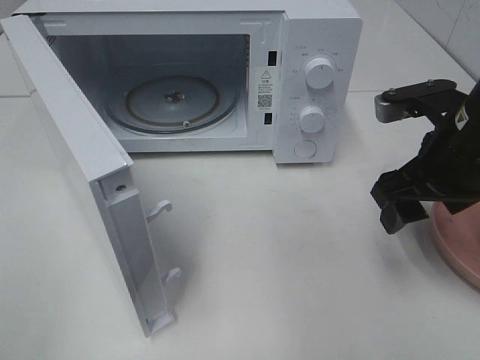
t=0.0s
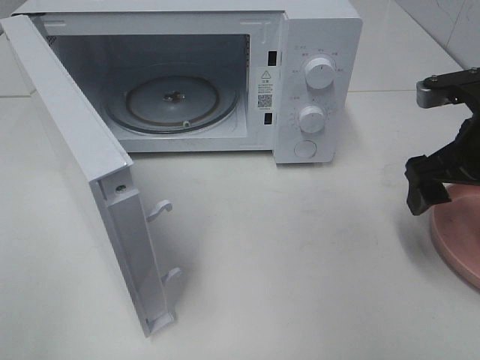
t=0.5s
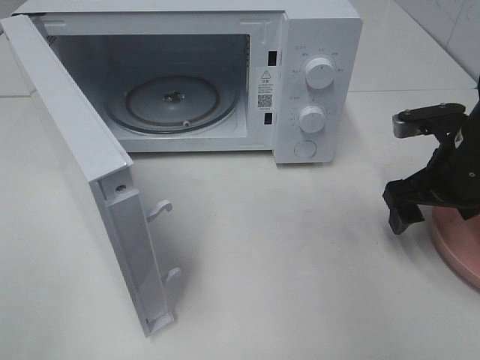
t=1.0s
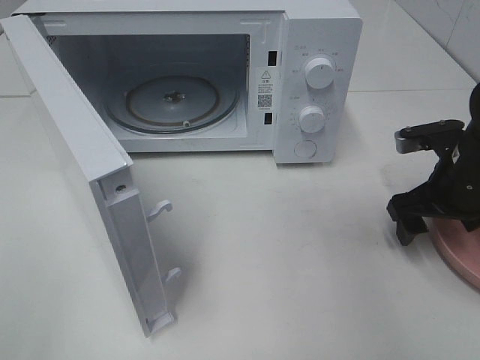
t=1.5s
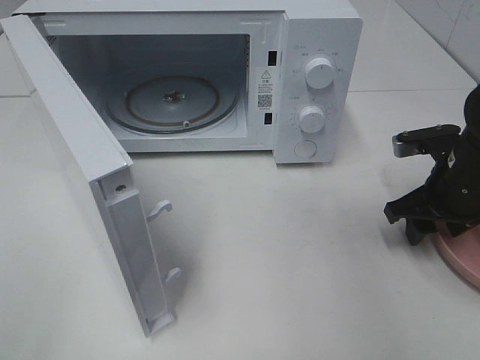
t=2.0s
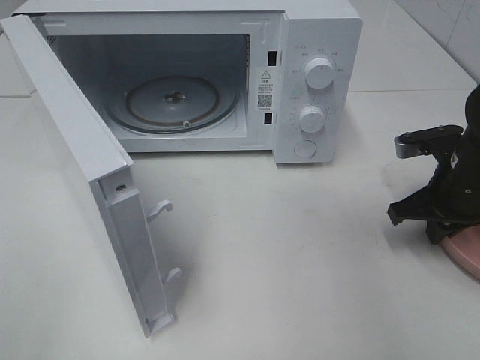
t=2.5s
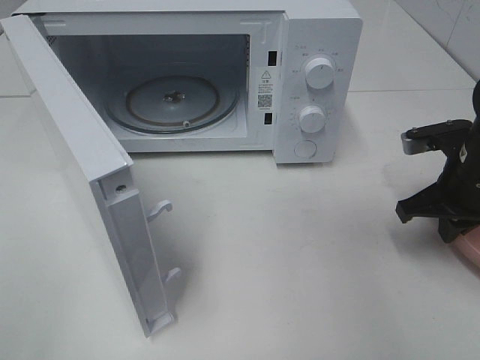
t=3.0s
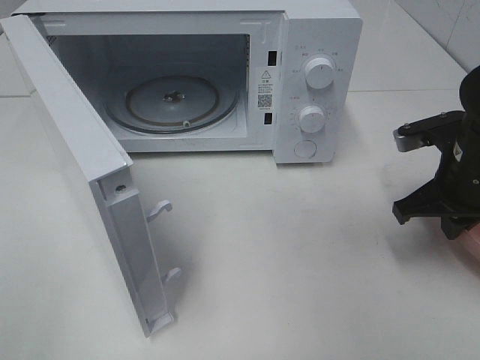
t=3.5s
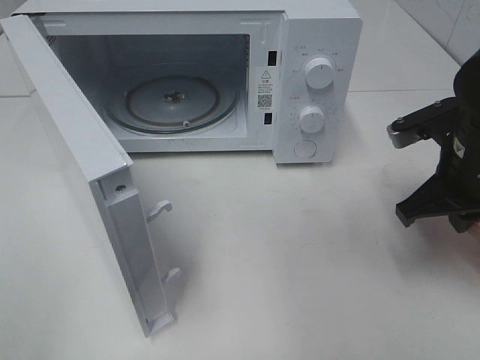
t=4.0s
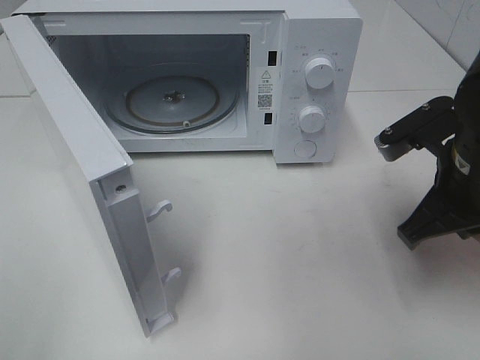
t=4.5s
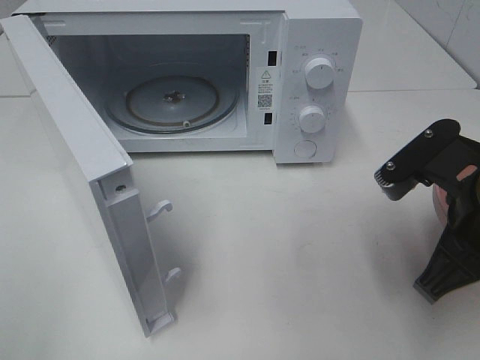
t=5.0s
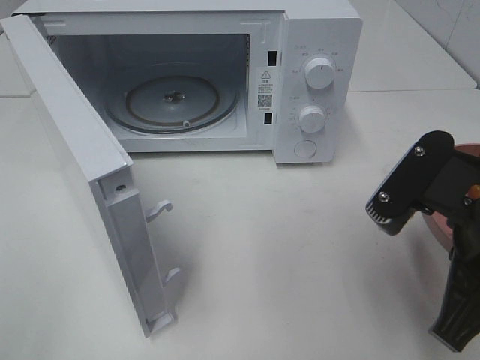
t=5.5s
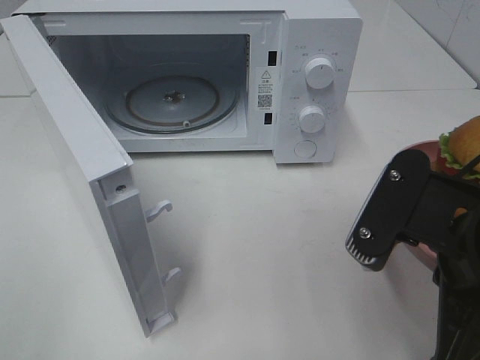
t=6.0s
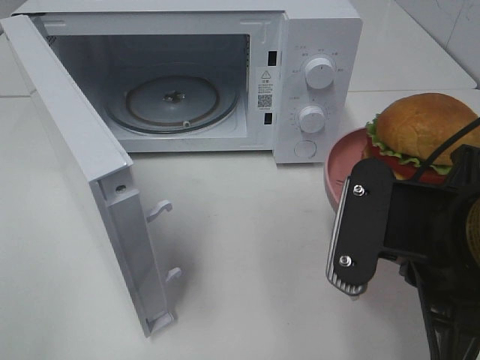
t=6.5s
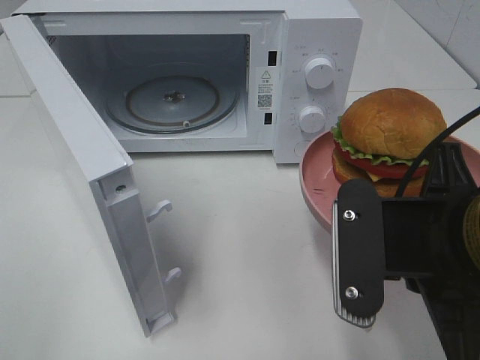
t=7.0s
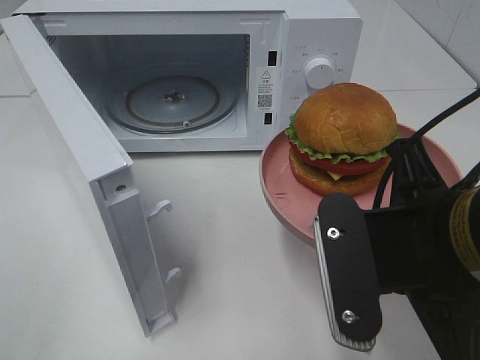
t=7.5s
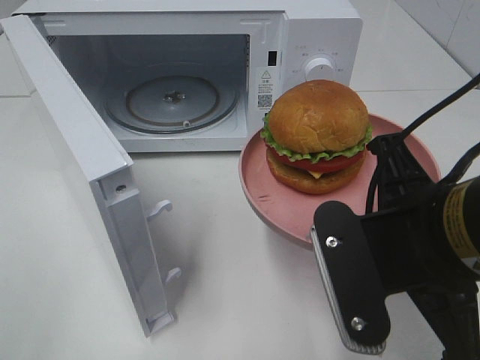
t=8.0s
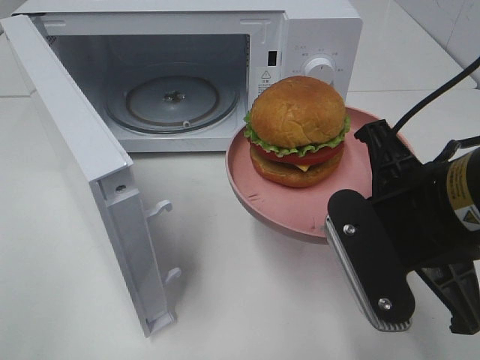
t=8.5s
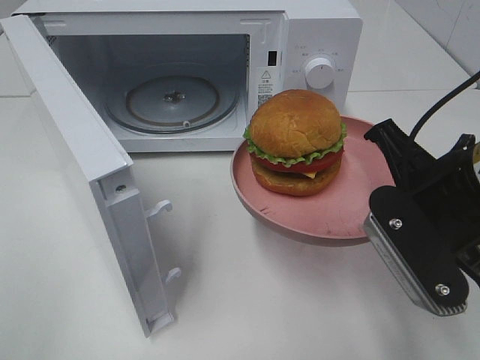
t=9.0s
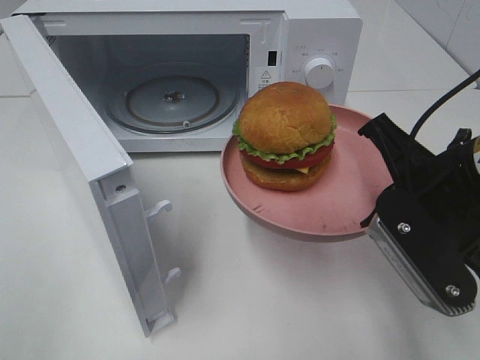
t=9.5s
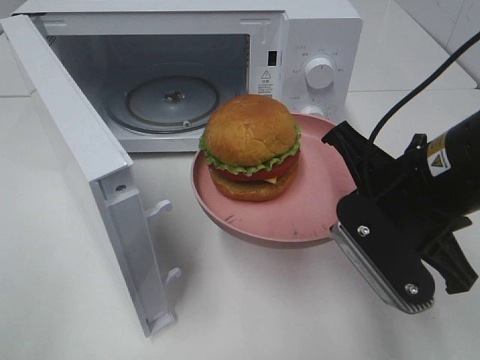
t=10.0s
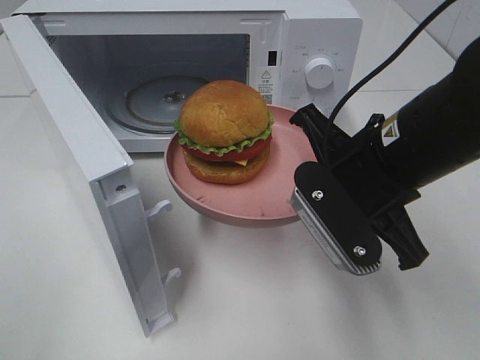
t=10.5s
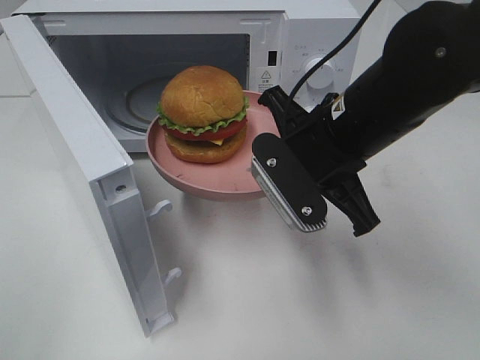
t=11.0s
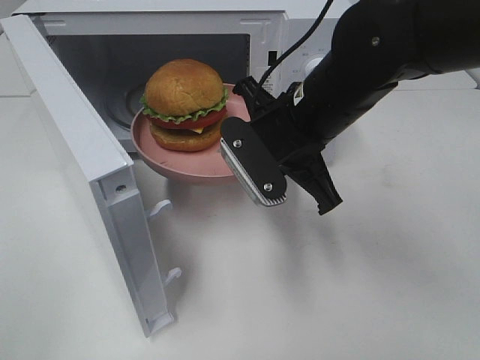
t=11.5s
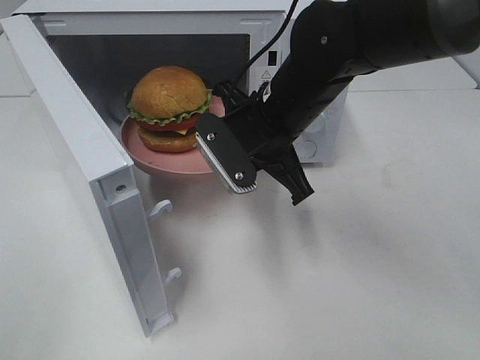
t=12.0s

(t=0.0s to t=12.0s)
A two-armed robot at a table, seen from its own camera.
Task of the whole recording: Heat the burger.
Step, t=0.0s - t=3.0s: Right hand: grab the plate with the hamburger.
t=0.0s - t=2.0s: The right gripper shifts approximately 10 cm downward and to the right.
t=2.0s - t=4.0s: The right gripper heads upward, covering roughly 5 cm, and closes up.
t=4.0s - t=6.0s: The right gripper shifts about 15 cm backward and to the left.
t=8.0s - t=10.0s: The right gripper moves forward, about 5 cm.
t=10.0s - t=12.0s: The right gripper moves forward and to the left, some 15 cm.

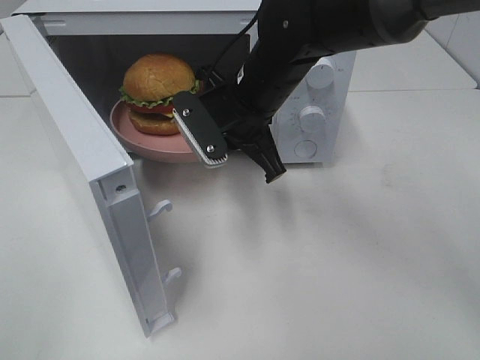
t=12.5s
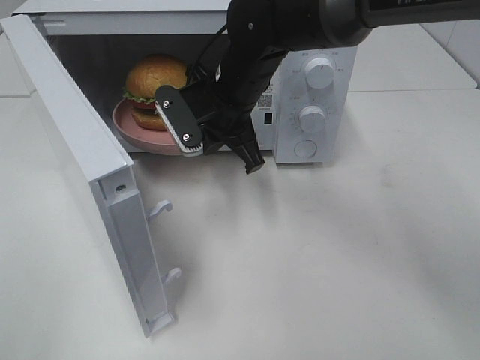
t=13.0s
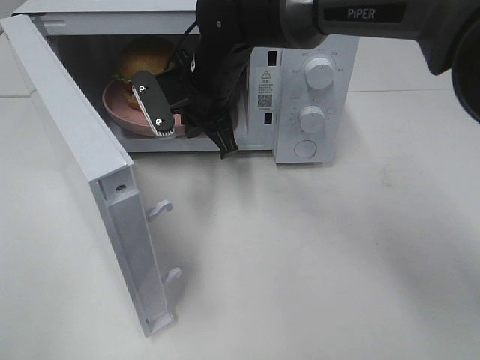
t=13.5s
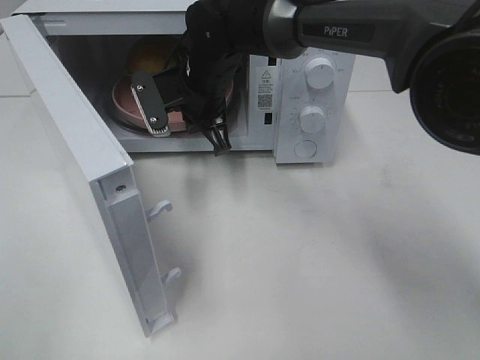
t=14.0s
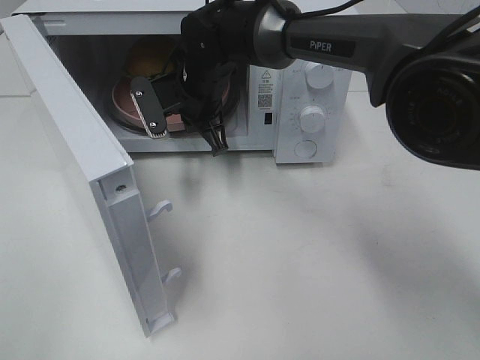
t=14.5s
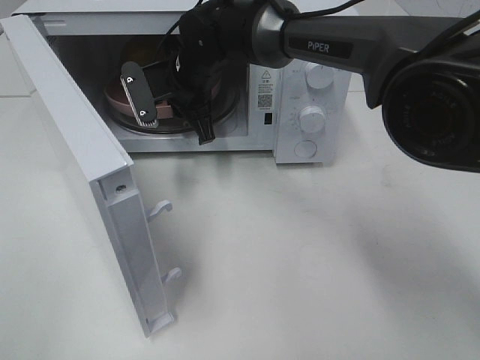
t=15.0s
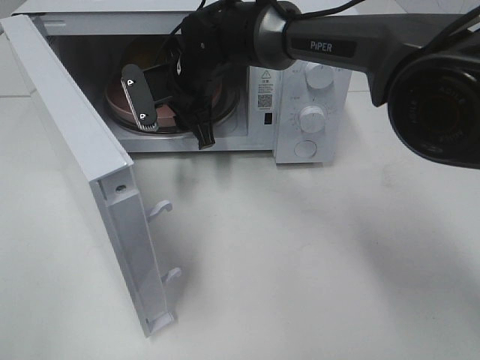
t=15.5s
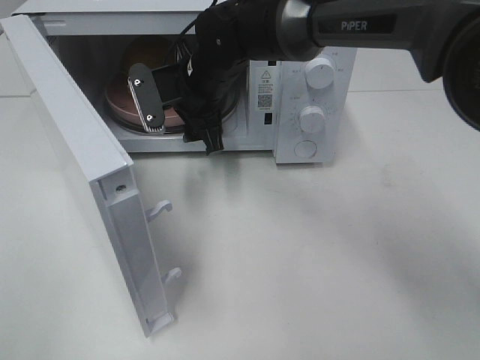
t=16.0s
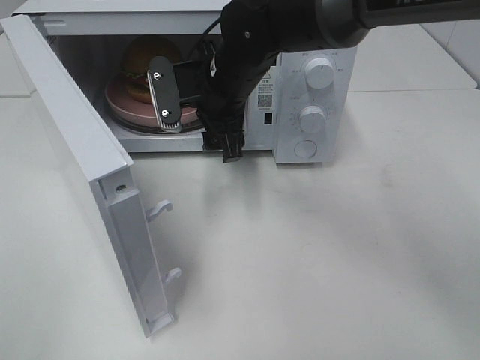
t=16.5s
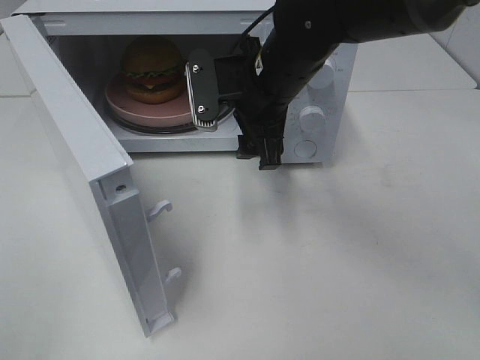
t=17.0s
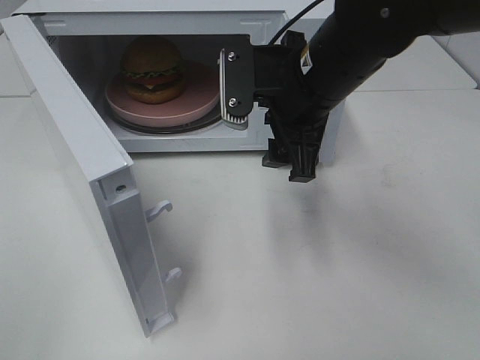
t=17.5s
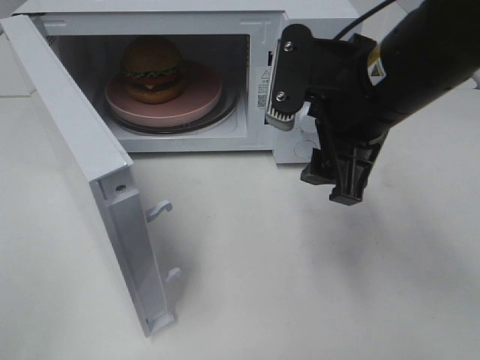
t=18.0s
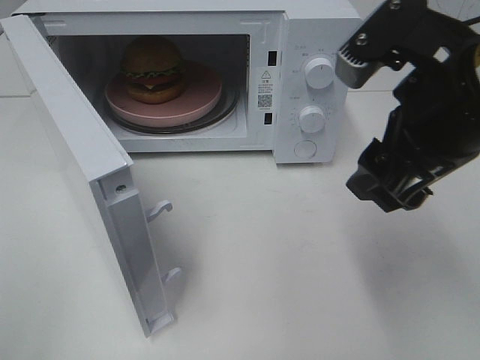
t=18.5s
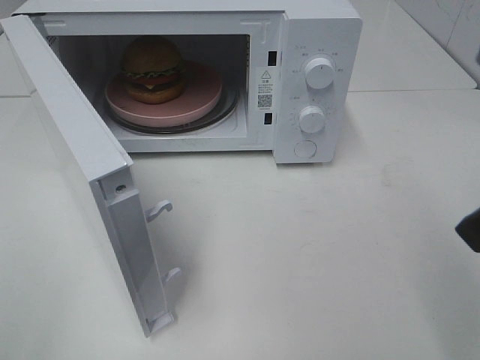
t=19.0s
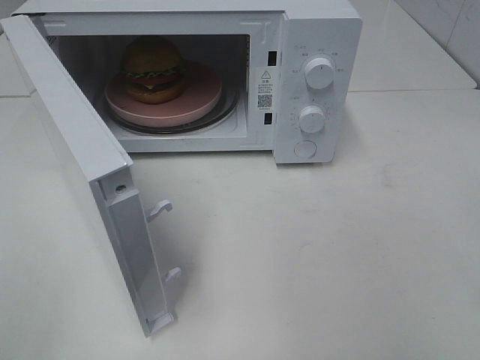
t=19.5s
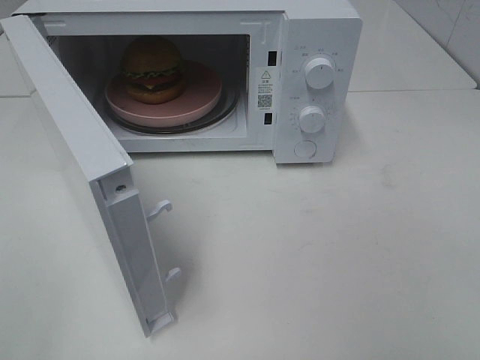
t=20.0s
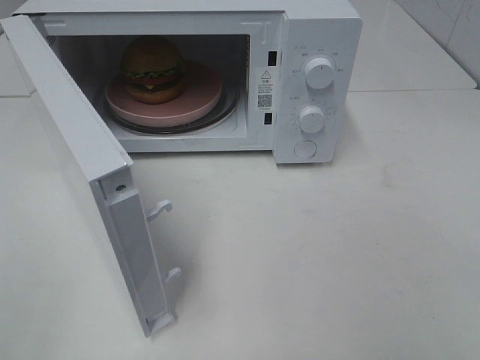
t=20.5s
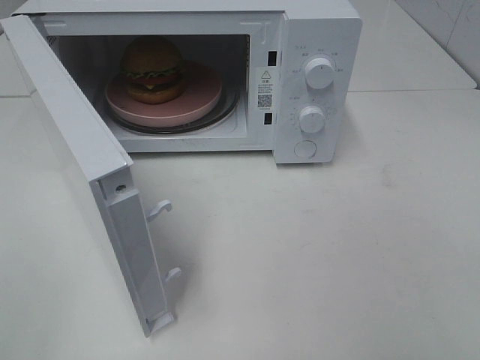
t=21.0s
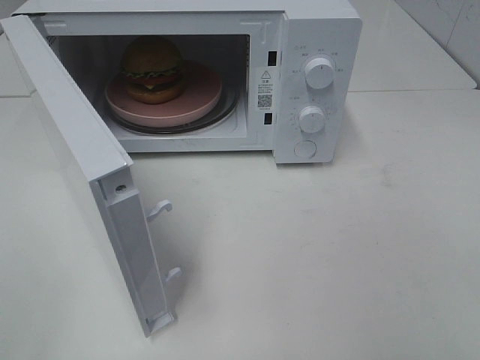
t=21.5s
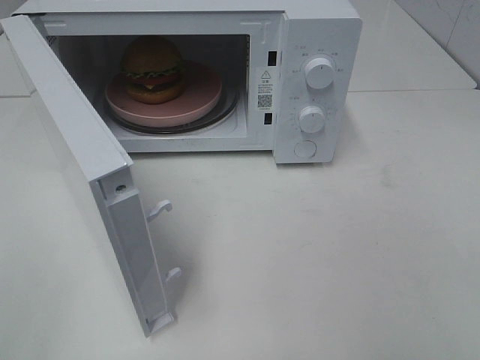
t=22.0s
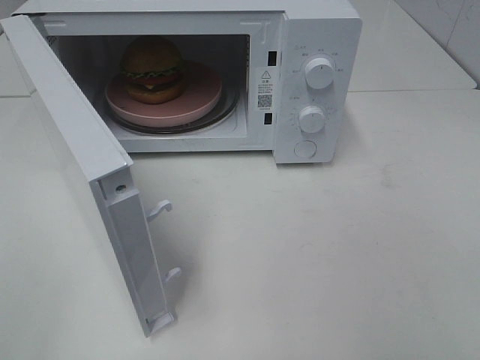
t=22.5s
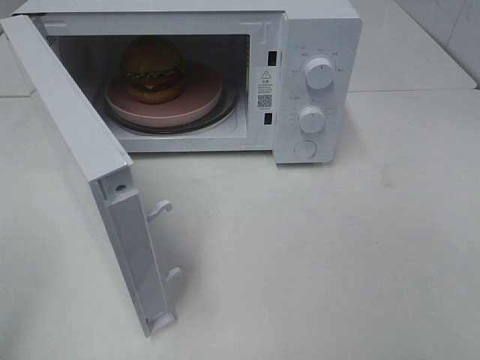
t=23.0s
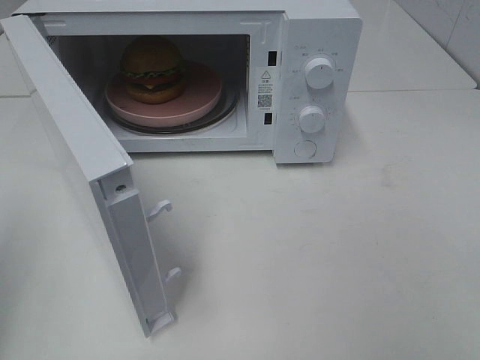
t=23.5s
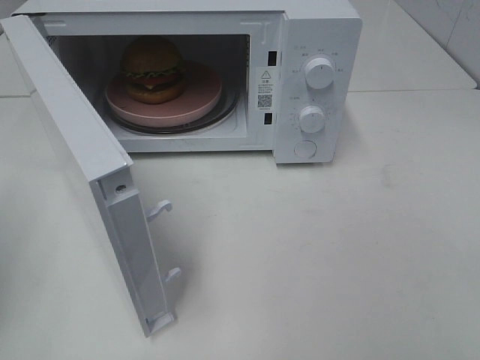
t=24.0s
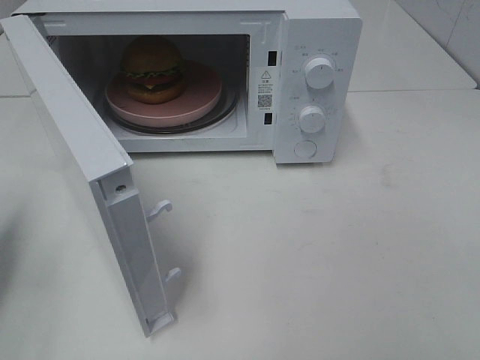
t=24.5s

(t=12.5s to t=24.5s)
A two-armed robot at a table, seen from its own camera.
Task of the whole recording: Heat the burger.
Step, t=12.5s - t=15.5s: Right hand: place the plate in the microwave.
t=12.5s - t=14.5s: The right gripper travels forward and to the left by approximately 10 cm.
t=14.5s - t=16.5s: The right gripper shifts by about 5 cm, and opens up.
t=16.5s - t=18.5s: The right gripper is displaced backward, to the right and upward by some 25 cm.
t=18.5s - t=20.5s: The right gripper is displaced backward and to the right by roughly 25 cm.
t=20.5s - t=22.5s: The two grippers keep their place.
t=22.5s - t=24.5s: The left gripper travels forward and downward by about 25 cm, and closes up.

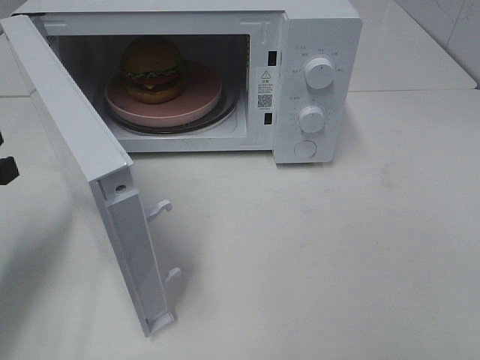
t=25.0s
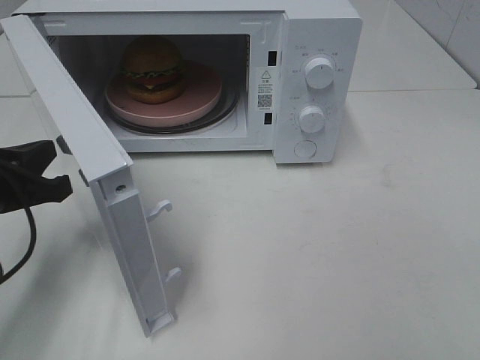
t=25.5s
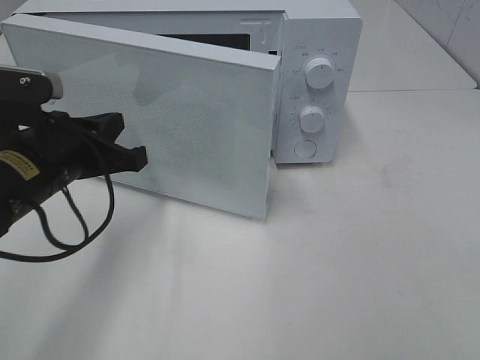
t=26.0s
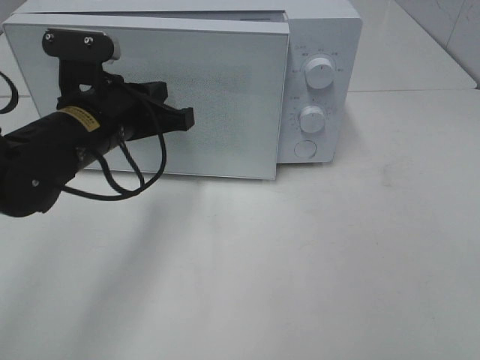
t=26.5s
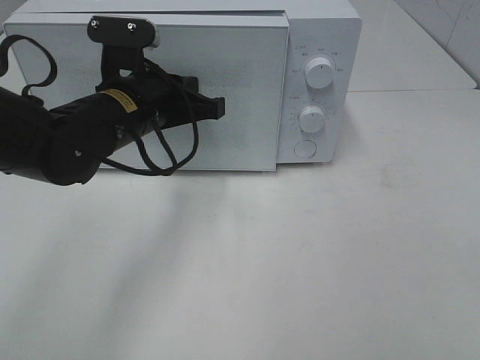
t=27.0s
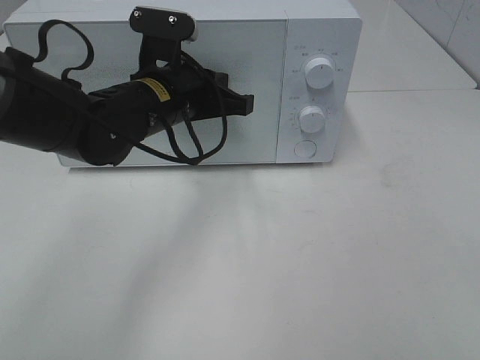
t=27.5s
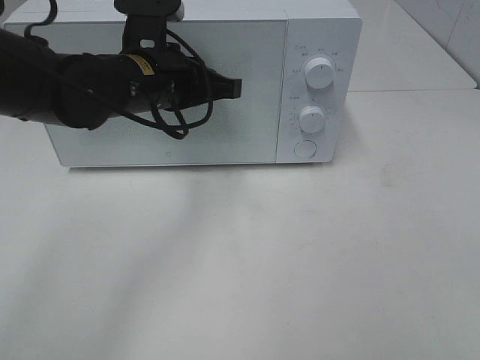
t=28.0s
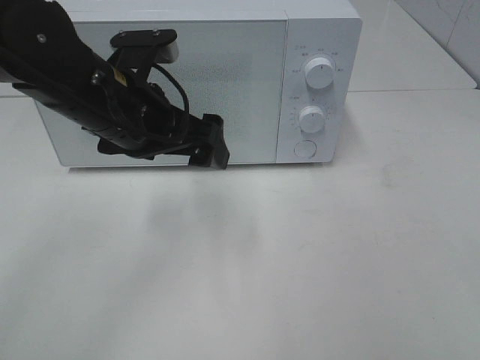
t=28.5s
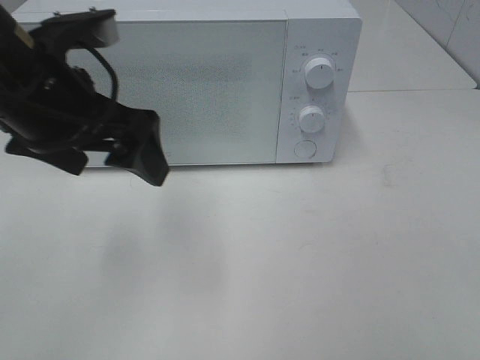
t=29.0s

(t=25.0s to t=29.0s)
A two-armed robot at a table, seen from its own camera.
Task of the whole recording: Heat the burger.
Step, t=25.0s - t=28.0s: Left hand: close the microwave door.
t=25.0s - t=27.0s: The left gripper is displaced to the right and forward by approximately 20 cm.
t=27.0s - t=29.0s: The left gripper heads upward, backward and to the left, covering roughly 15 cm, and opens up.
